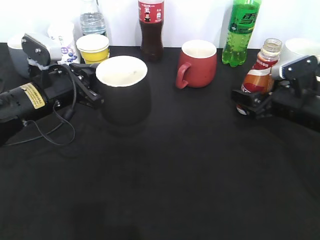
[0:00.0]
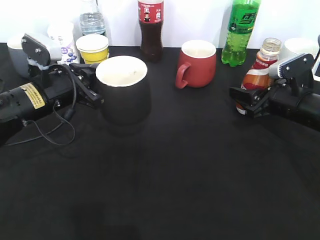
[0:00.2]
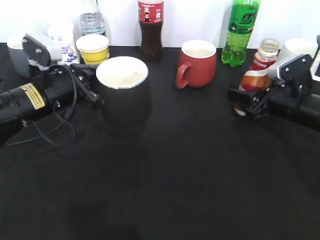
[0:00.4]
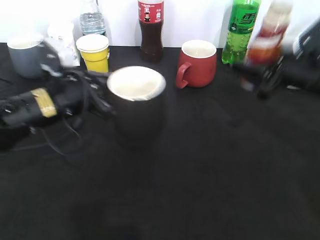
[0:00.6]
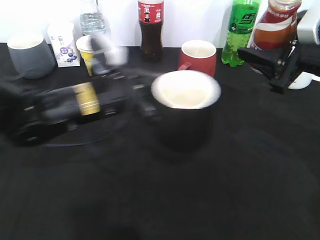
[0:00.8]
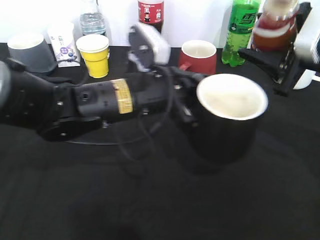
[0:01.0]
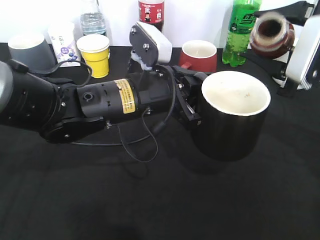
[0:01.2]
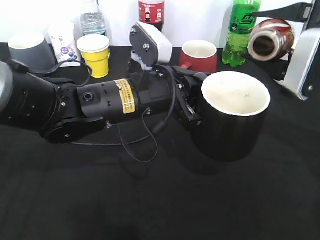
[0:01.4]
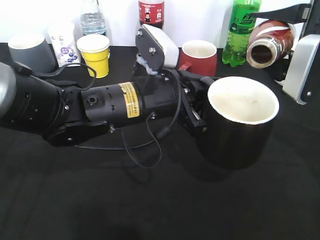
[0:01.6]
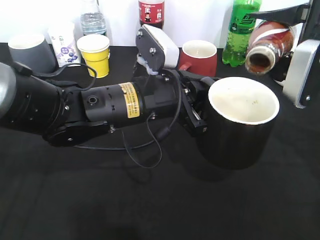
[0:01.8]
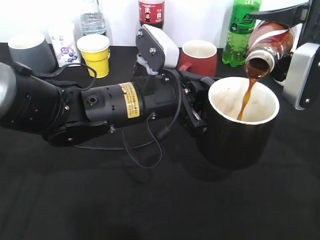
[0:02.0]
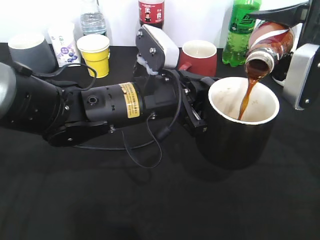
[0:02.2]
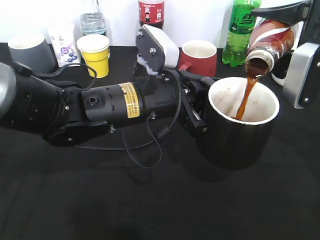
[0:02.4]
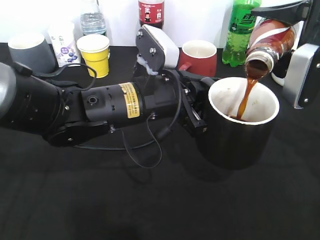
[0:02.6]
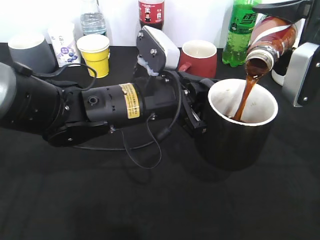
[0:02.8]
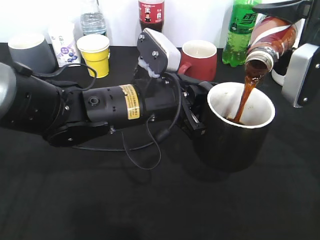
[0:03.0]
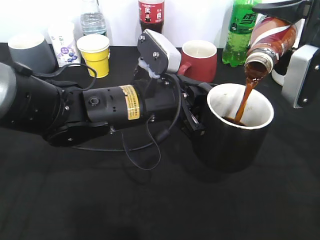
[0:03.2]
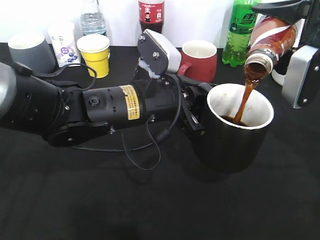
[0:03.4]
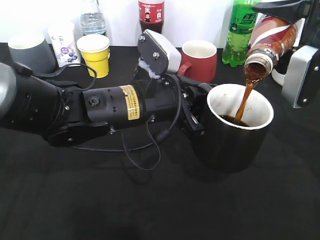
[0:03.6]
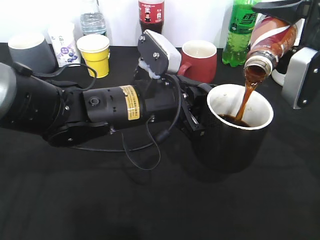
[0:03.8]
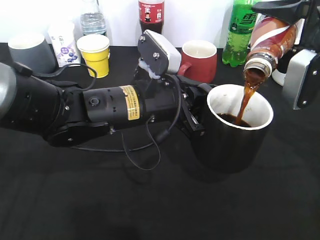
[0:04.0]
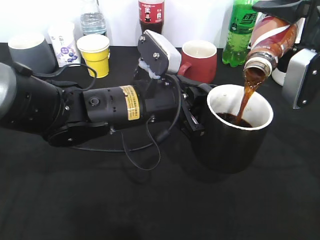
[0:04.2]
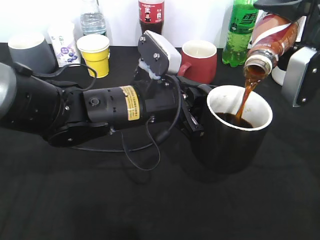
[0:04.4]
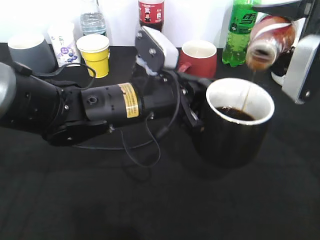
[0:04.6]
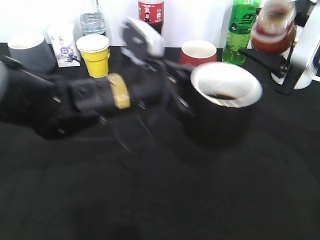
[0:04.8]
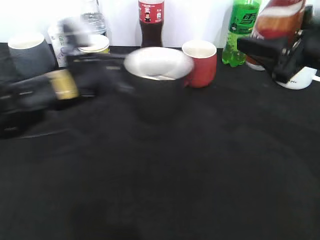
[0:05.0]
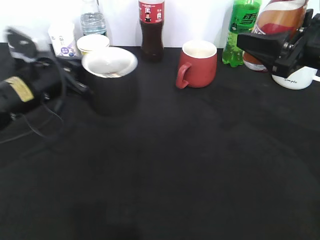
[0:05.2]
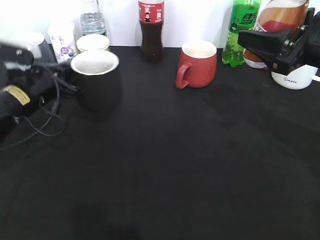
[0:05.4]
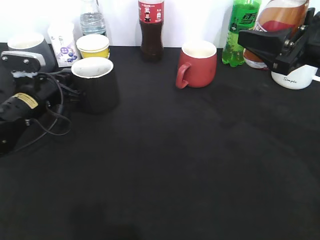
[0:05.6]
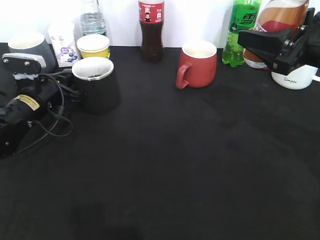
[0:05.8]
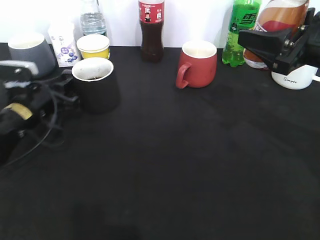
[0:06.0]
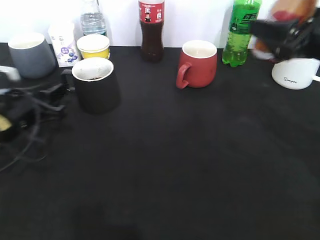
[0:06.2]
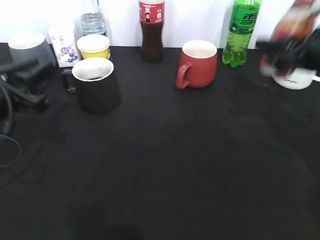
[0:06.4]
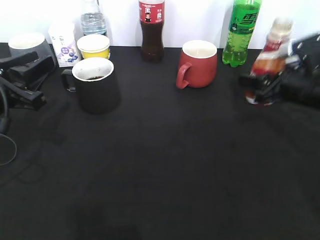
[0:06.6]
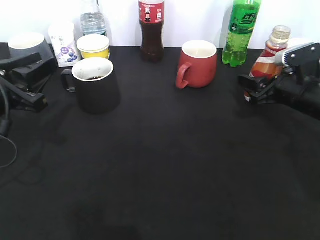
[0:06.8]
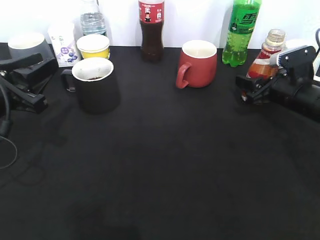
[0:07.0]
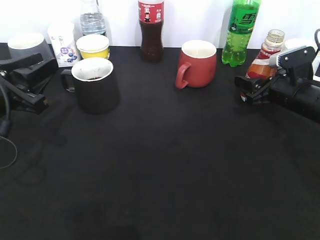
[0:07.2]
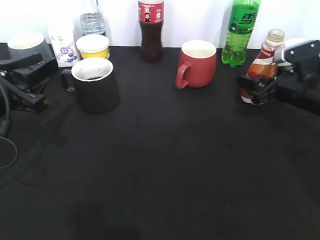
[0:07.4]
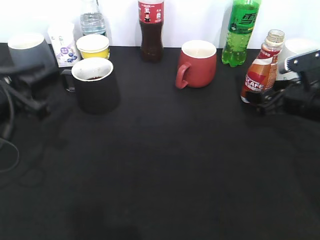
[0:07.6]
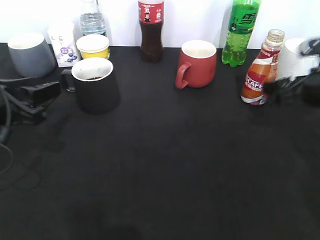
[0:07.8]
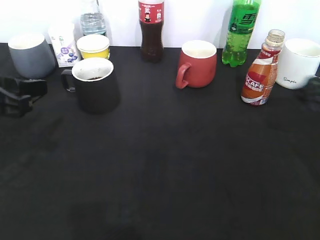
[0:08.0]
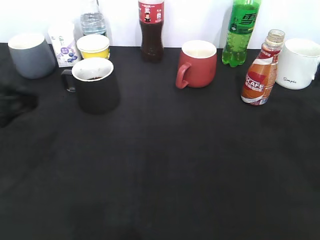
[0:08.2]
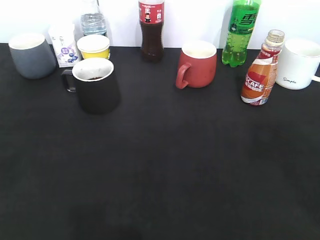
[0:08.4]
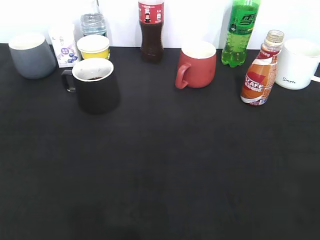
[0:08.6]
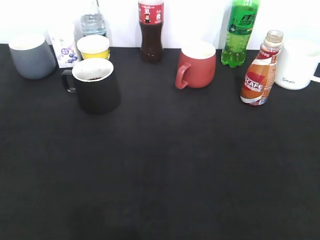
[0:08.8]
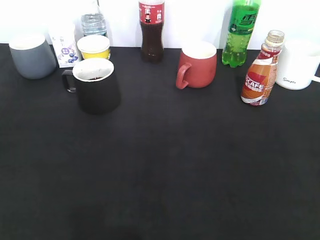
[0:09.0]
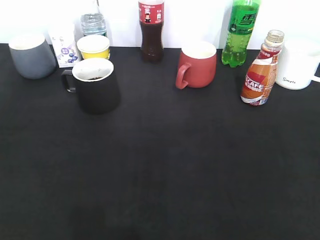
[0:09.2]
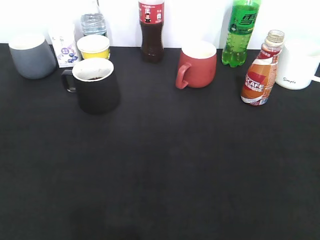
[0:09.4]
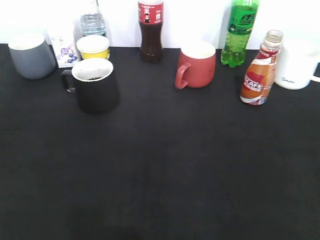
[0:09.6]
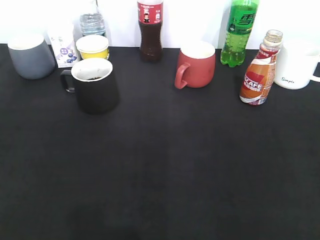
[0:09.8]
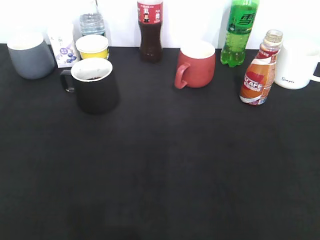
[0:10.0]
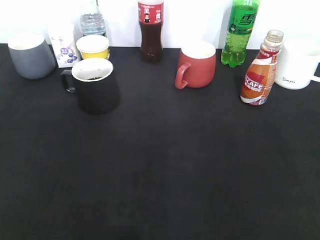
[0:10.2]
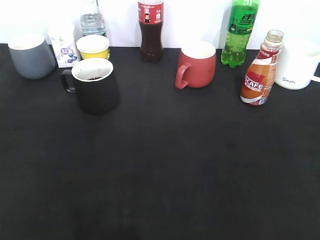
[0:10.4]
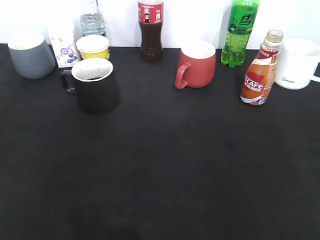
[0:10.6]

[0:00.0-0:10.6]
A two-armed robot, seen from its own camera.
Step, 0:00.4 to 0:04.8: Pour the coffee from bottle to cup with right gripper.
Step, 0:05.0 to 0:06.0: Place the black cup on the table with left gripper.
Step, 0:06.4 to 0:07.4: Place the coffee bottle on the table with right gripper.
0:00.0 to 0:01.6: The left gripper shifts some 15 cm to the right. The right gripper travels upward by about 15 cm, and closes its fingers.
0:01.6 to 0:03.0: The grippers make only small movements.
0:03.0 to 0:04.6: The grippers make only small movements.
0:04.6 to 0:06.0: The left gripper travels to the left and downward by about 25 cm, and opens.
0:06.0 to 0:07.6: The right gripper goes some 10 cm downward, and opens. Meanwhile the left gripper heads backward and upward, covering roughly 10 cm.
0:07.6 to 0:09.0: The two grippers go approximately 30 cm backward and upward. The right gripper closes its fingers.
0:09.0 to 0:10.6: The left gripper closes its fingers.

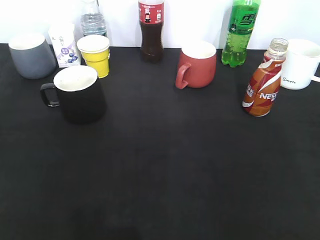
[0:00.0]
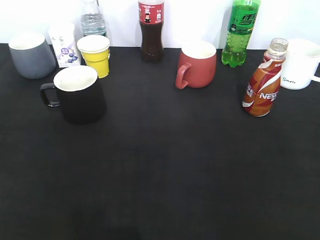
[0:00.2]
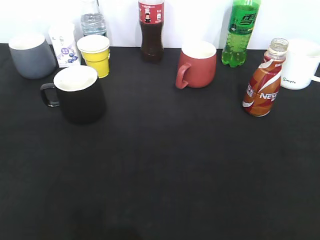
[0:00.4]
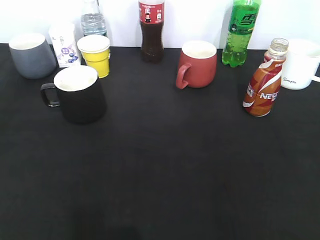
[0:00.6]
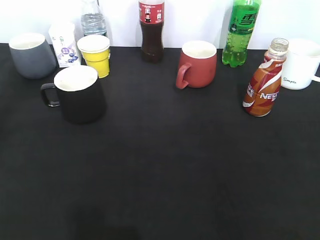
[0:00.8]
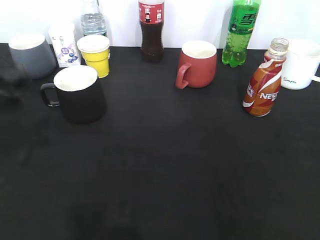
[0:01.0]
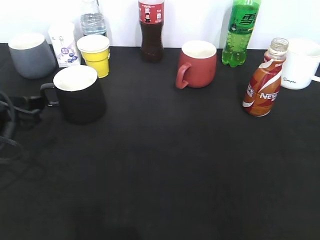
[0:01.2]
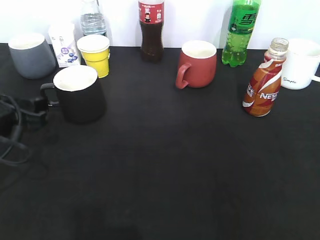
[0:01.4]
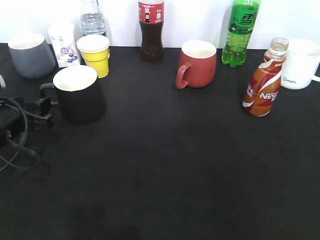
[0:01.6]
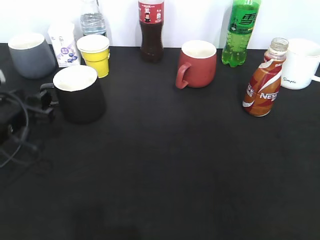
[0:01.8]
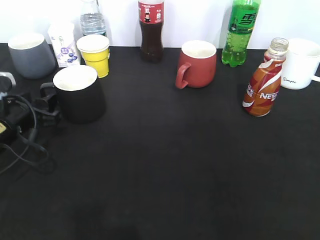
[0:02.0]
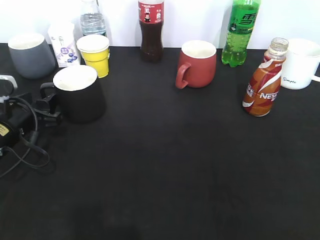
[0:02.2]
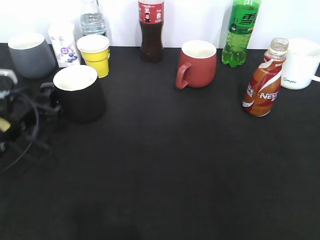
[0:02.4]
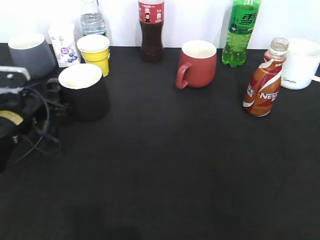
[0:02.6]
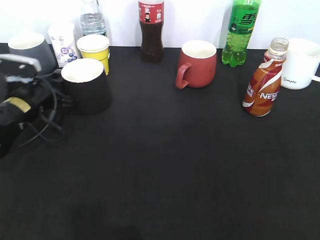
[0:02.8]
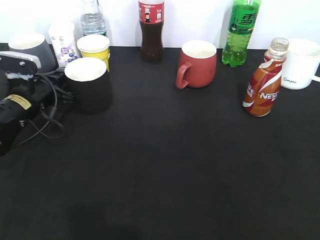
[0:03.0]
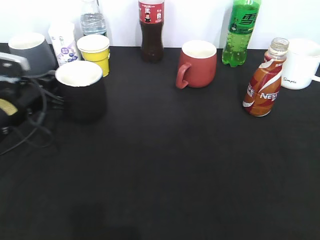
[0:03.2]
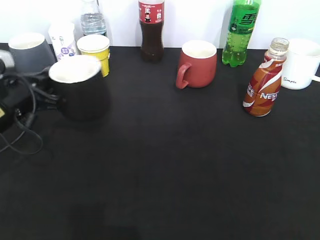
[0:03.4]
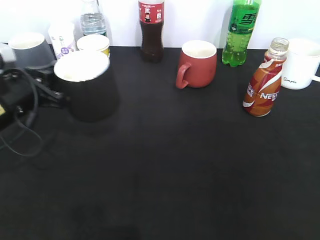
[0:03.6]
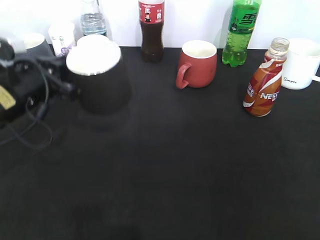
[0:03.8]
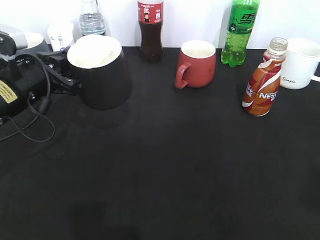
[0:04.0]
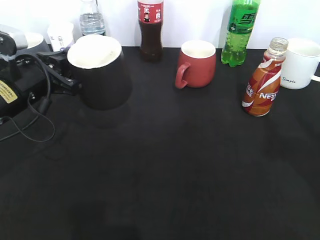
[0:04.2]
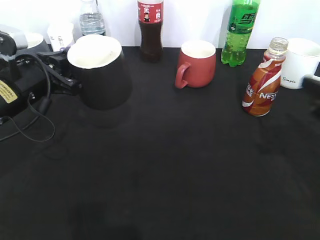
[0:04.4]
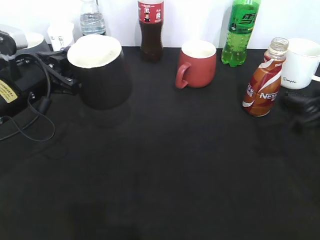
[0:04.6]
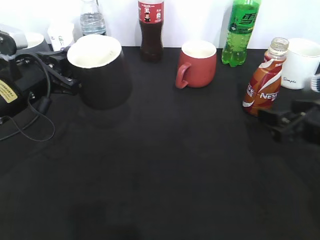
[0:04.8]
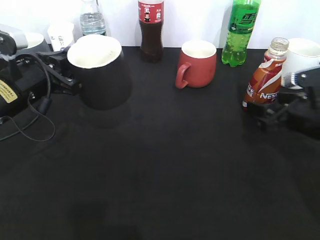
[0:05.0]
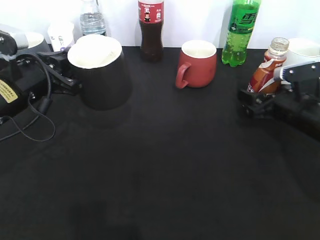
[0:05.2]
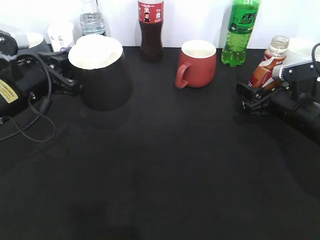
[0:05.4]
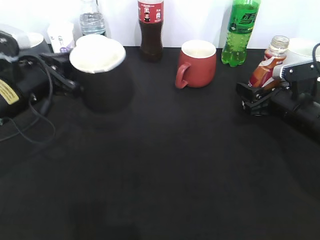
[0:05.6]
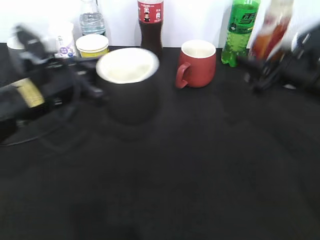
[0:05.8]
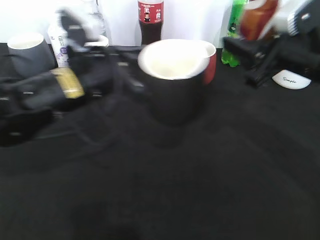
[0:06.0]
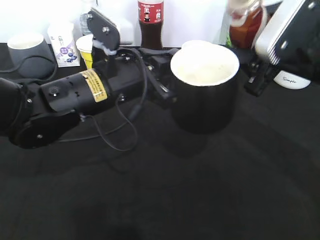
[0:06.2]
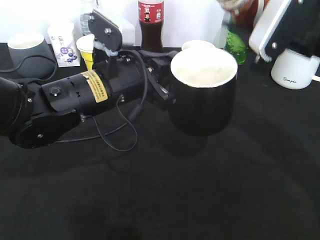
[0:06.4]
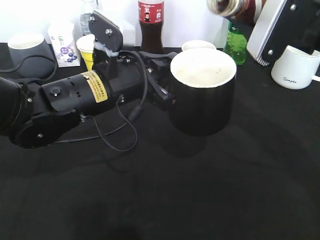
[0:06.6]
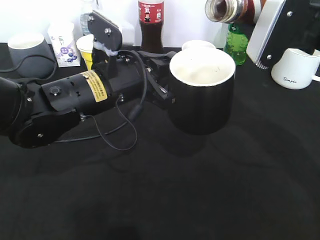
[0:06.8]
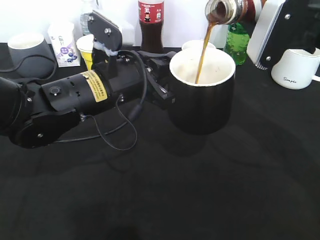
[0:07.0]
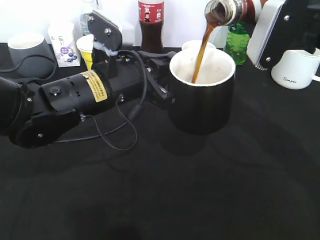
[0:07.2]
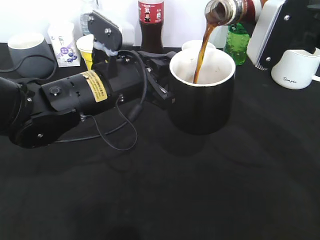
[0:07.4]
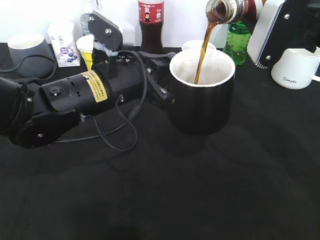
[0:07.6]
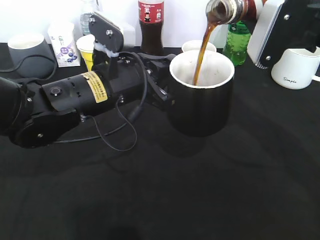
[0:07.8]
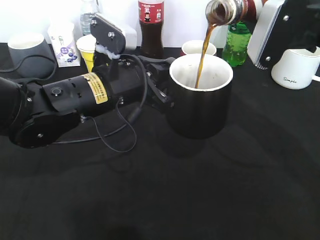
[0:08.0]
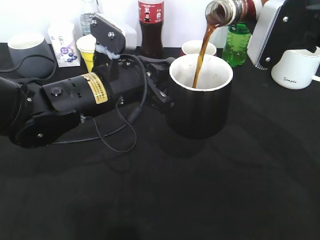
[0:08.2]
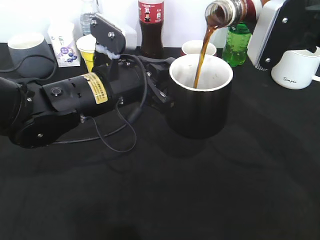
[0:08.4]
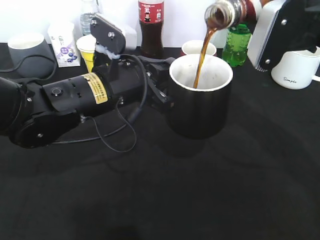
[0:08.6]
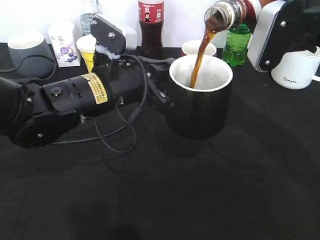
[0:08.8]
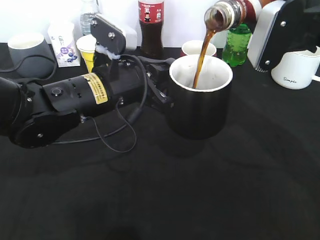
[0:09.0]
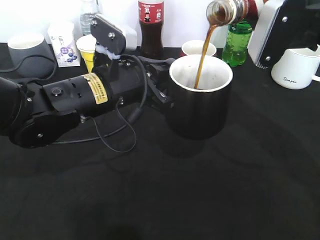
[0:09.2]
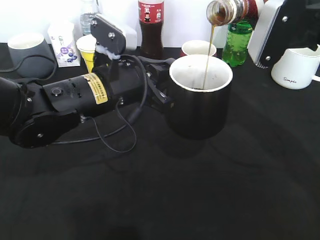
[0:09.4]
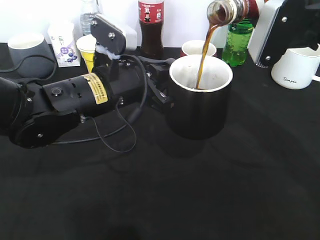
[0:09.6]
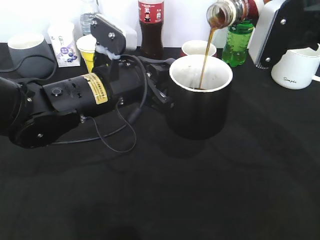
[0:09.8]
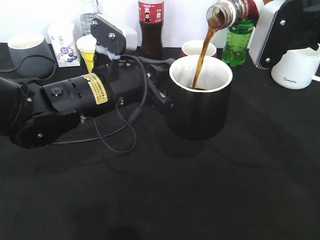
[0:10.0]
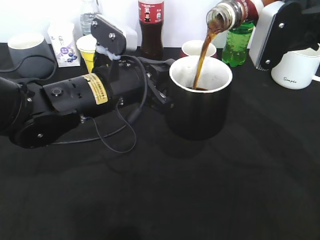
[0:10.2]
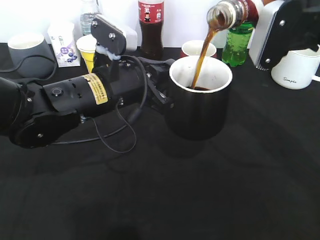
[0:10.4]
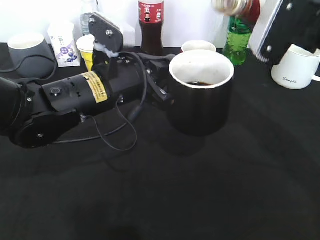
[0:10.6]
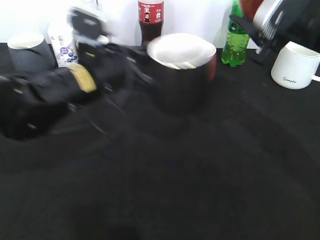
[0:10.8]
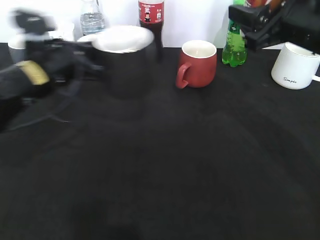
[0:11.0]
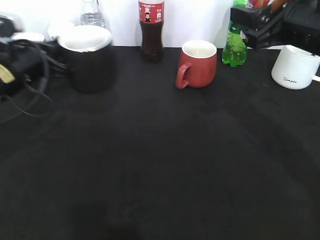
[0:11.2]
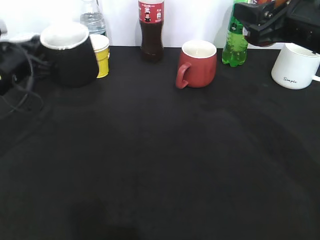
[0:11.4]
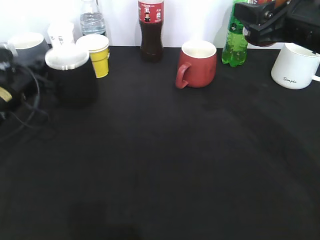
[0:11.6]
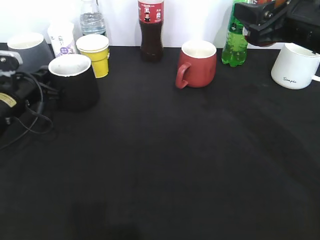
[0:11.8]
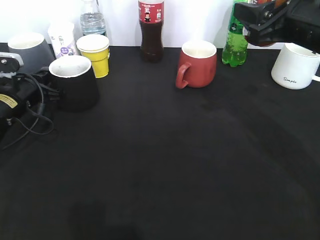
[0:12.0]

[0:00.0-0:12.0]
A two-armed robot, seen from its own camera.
Step, 0:00.0 to 0:02.8: Grasp the black cup with left gripper.
Step, 0:03.0 to 0:03.8: Lift the black cup with left gripper.
Step, 0:04.0 to 0:05.4: Grasp the bottle with coffee with right gripper.
Step, 0:05.6 to 0:10.8: Pour the coffee from bottle to cup with right gripper.
0:00.0 to 0:01.6: The left gripper is displaced forward and downward by approximately 30 cm.
0:01.6 to 0:03.0: The left gripper goes about 10 cm forward, and closes up.
0:03.0 to 0:04.4: The right gripper is displaced forward by about 20 cm; the left gripper moves upward and backward, approximately 10 cm.
0:04.4 to 0:06.0: The right gripper is displaced to the left and forward by roughly 10 cm, reaches about 10 cm downward, then returns, and opens, then closes again; the left gripper shifts some 10 cm to the right.
0:07.6 to 0:10.4: The grippers make only small movements.
0:10.4 to 0:12.0: The left gripper goes approximately 25 cm to the left, downward and forward.
